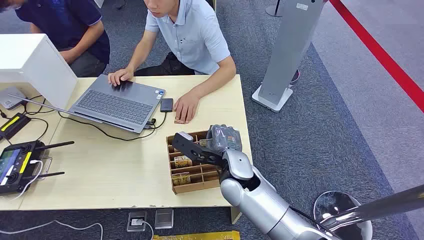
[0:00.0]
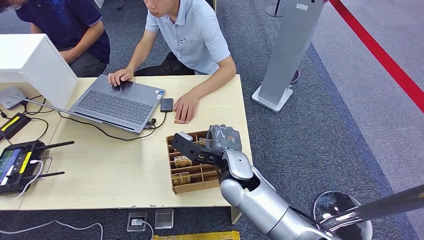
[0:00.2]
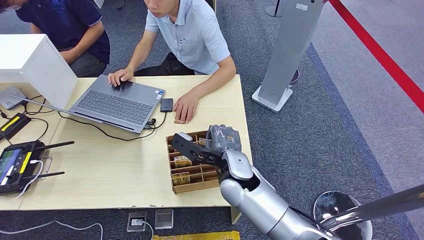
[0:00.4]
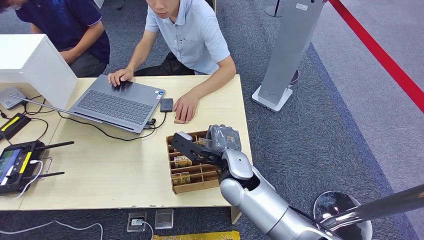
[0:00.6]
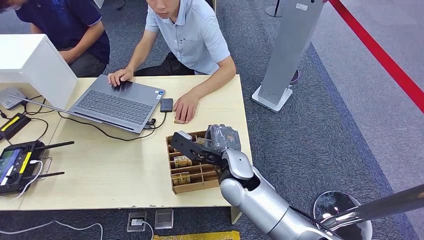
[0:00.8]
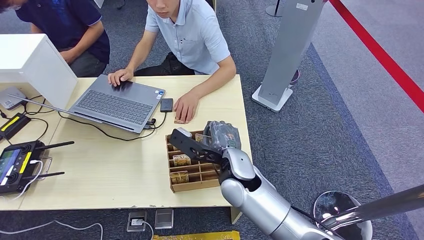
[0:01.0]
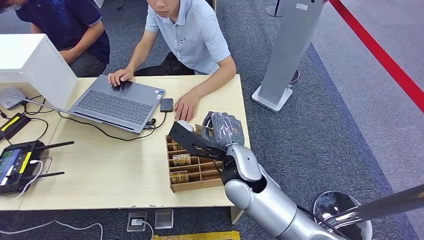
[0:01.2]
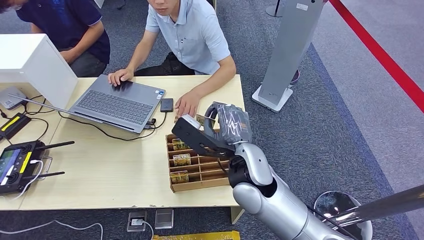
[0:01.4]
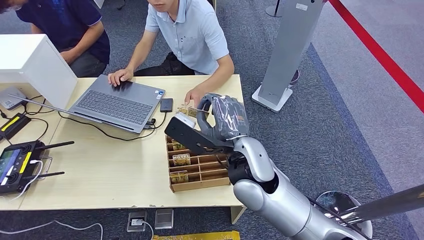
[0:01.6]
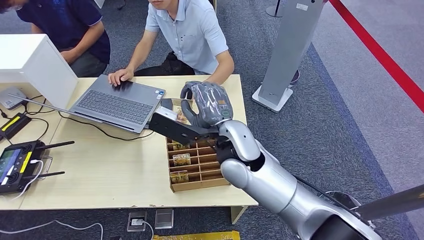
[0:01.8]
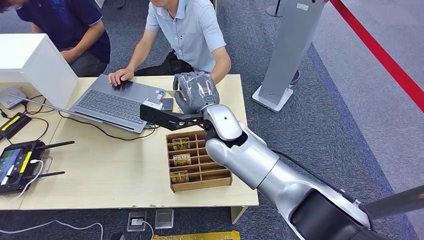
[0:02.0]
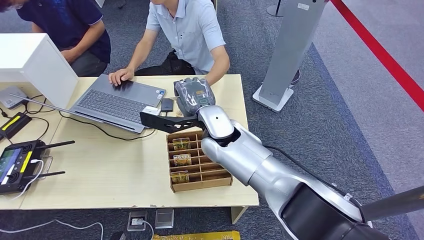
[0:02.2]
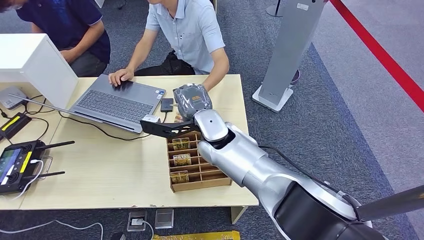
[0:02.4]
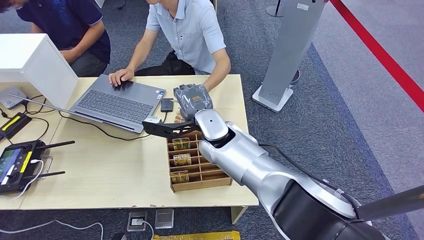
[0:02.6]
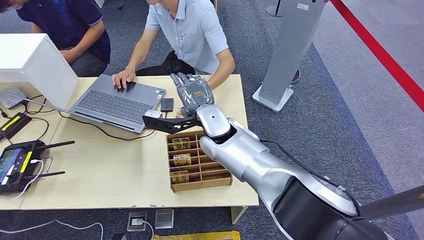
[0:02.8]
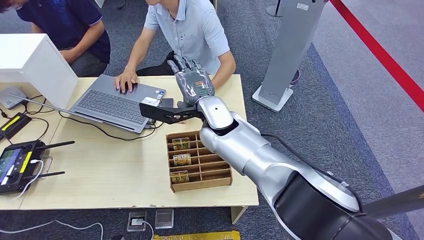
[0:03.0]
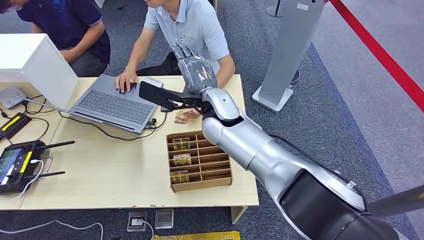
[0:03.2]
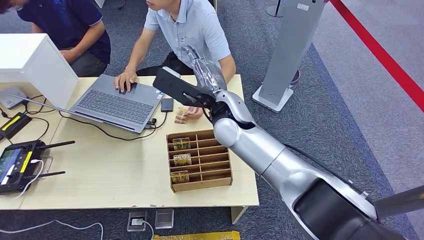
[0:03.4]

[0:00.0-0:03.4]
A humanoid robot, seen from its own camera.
Step, 0:00.0 to 0:01.4: Pick up the key card from the card box.
Step, 0:01.6 to 0:03.4: Hand the key card to the target.
0:01.6 to 0:03.4: The right hand moves forward, roughly 10 cm.
